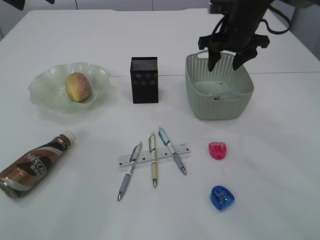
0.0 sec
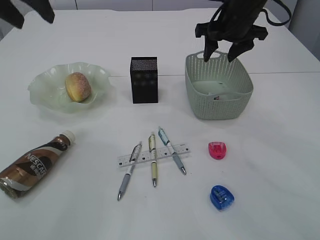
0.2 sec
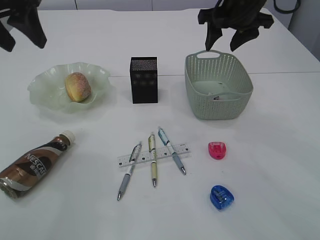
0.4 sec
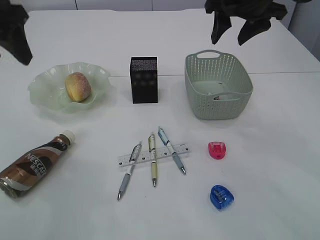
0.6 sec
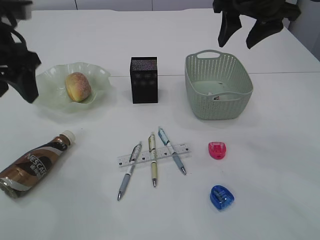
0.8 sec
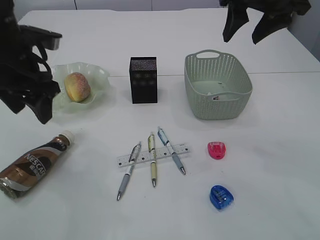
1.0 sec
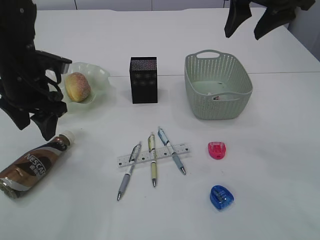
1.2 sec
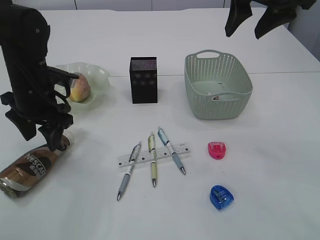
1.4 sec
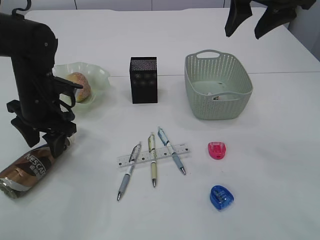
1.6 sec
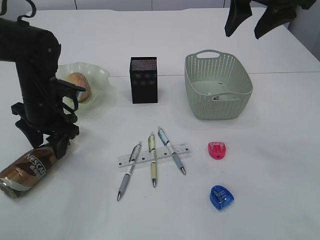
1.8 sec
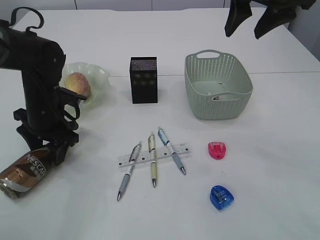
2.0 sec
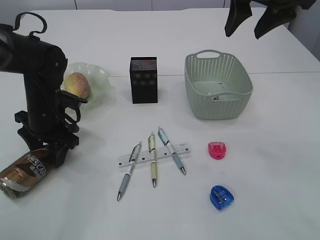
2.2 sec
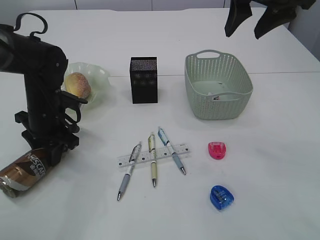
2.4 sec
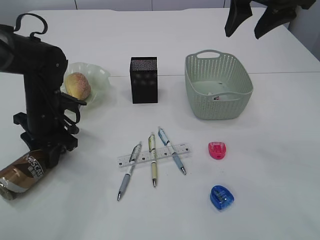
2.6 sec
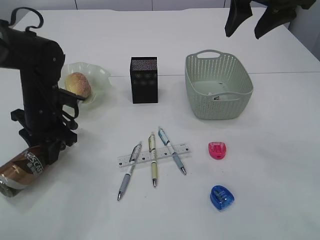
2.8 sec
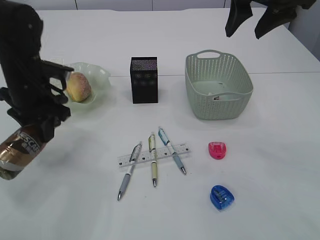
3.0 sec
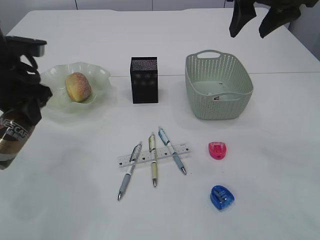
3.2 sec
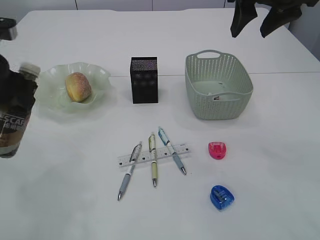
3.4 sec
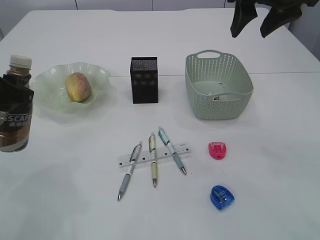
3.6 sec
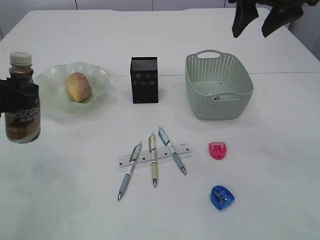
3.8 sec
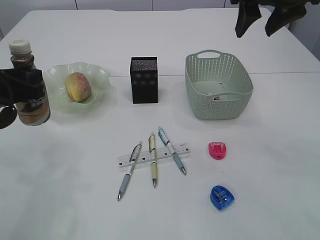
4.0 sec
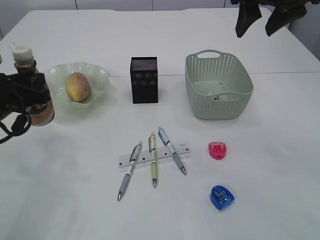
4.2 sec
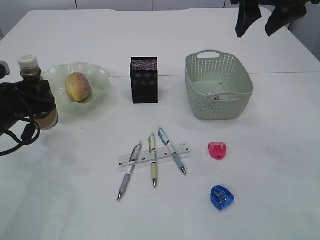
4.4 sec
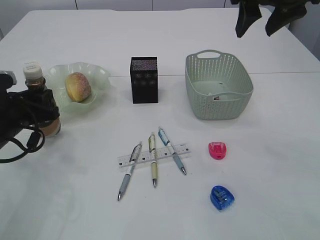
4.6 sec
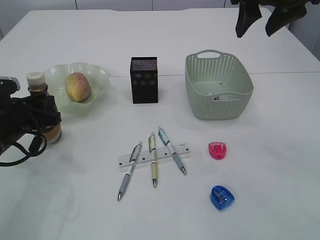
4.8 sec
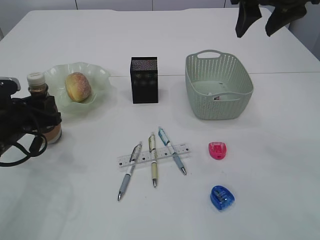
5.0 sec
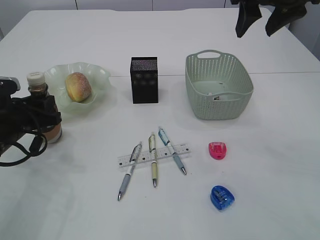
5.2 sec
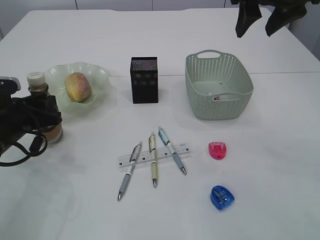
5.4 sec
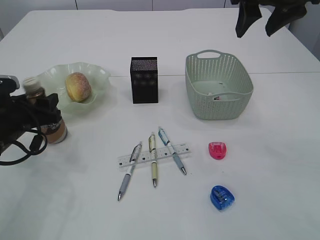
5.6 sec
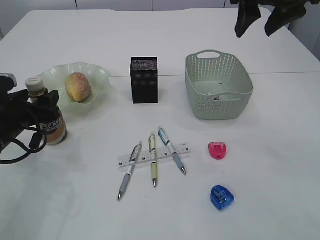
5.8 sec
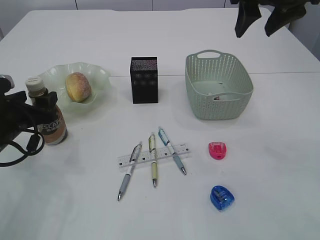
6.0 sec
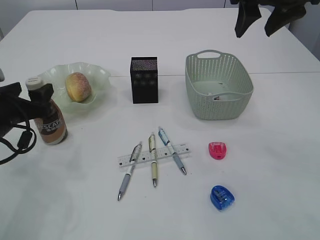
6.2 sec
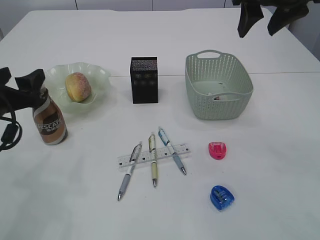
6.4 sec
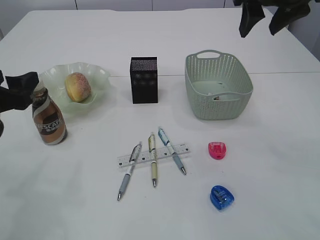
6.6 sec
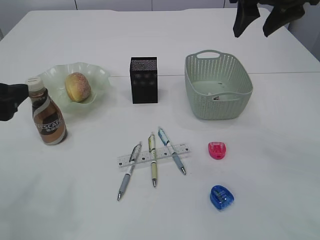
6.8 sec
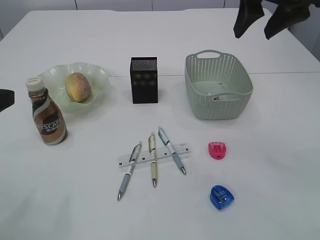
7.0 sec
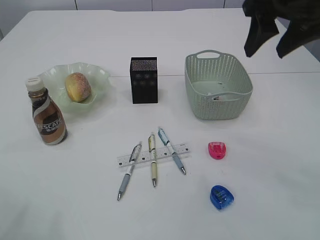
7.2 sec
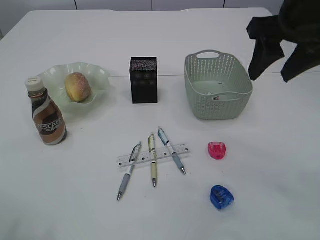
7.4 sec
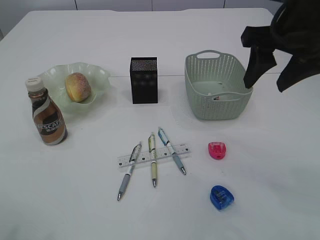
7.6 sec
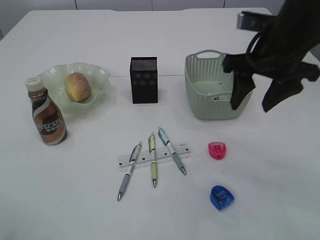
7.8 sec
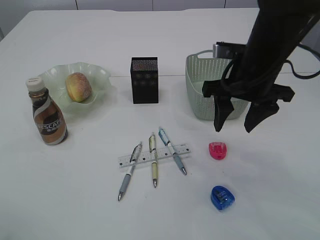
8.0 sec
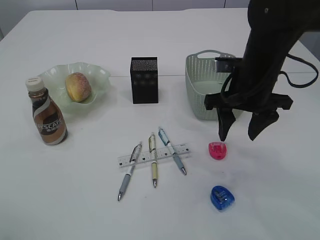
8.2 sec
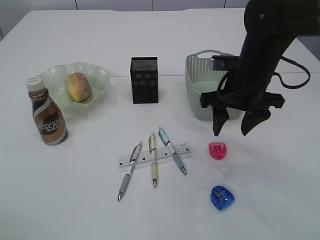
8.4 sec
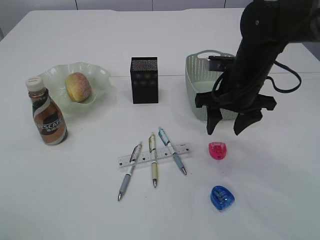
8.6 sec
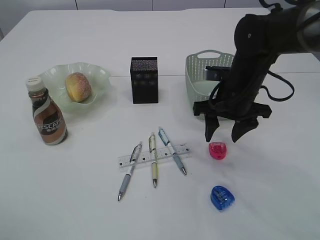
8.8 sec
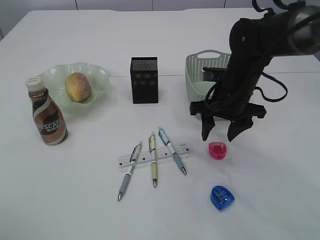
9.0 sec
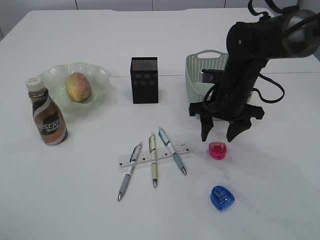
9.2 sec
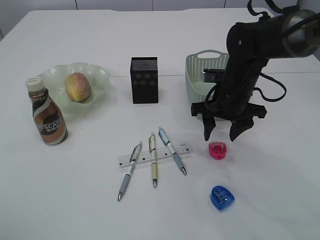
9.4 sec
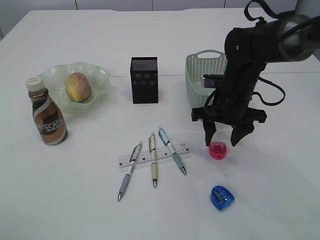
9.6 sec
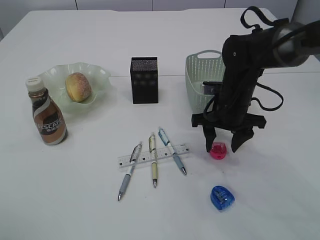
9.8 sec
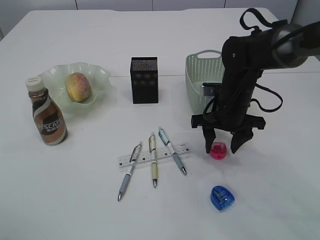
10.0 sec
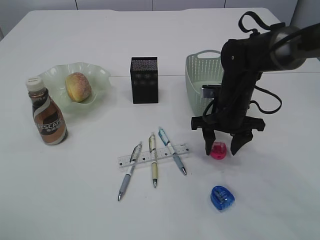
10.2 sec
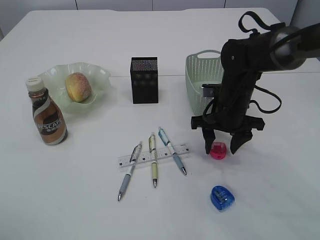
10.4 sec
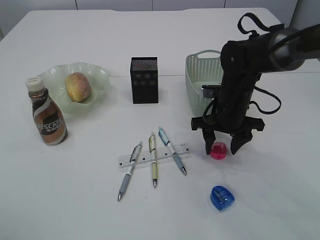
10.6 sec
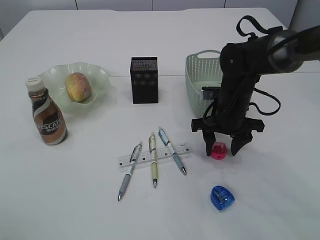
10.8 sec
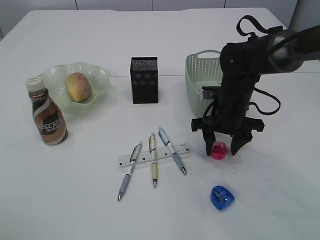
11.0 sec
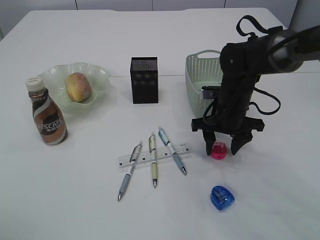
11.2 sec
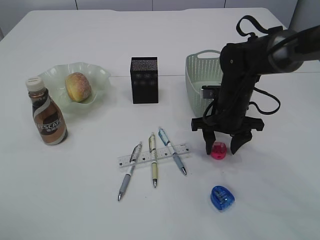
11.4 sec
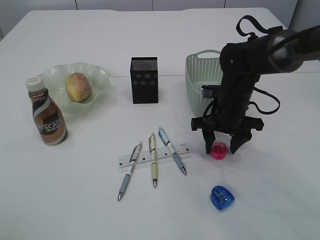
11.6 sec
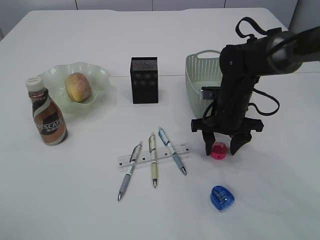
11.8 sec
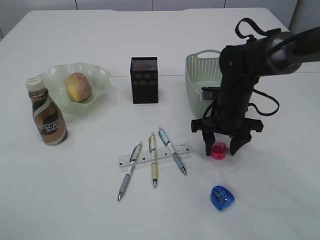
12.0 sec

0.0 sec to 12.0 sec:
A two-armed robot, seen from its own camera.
Step, 0.6 sec to 2.8 sec: transfer the bottle to the left arm.
Step, 3.0 sec to 6.6 sec: Place the bottle.
0.0 sec to 1.6 sec: The left gripper heads downward, covering approximately 25 cm, while the right gripper shifts roughly 15 cm upward and backward.
1.6 sec to 3.0 sec: The left gripper closes up.
3.0 sec to 4.4 sec: The left gripper travels backward by about 5 cm, and goes upward and returns, some 10 cm each way.
4.4 sec to 6.0 sec: The left gripper opens.
6.0 sec to 7.6 sec: The right gripper goes approximately 5 cm backward, while the left gripper goes roughly 25 cm upward and backward.
7.6 sec to 9.0 sec: The right gripper goes about 20 cm downward and forward.
9.0 sec to 10.4 sec: The grippers move only a little.
10.4 sec to 12.0 sec: Both grippers stay put.

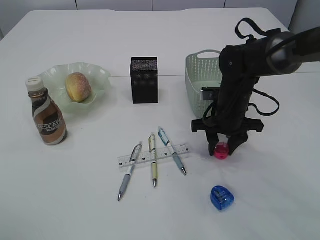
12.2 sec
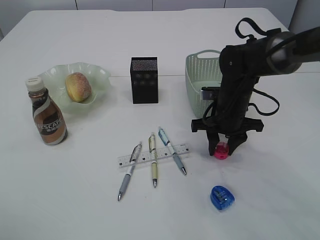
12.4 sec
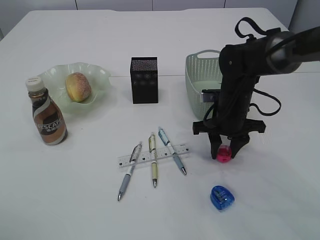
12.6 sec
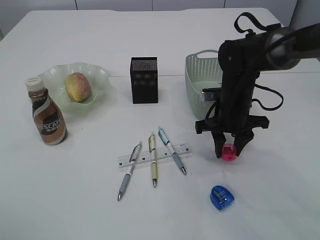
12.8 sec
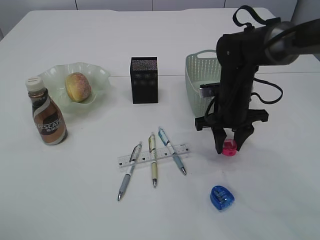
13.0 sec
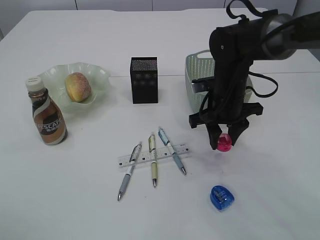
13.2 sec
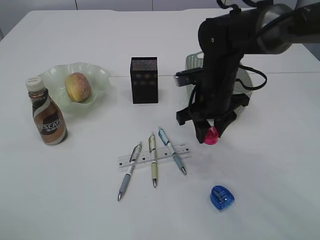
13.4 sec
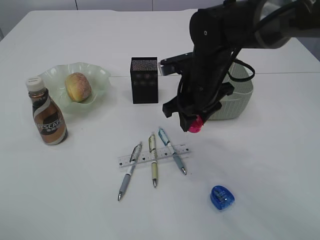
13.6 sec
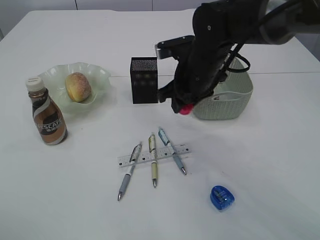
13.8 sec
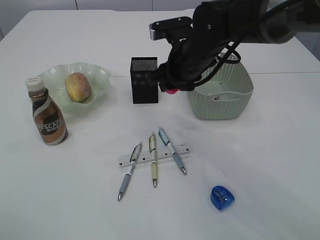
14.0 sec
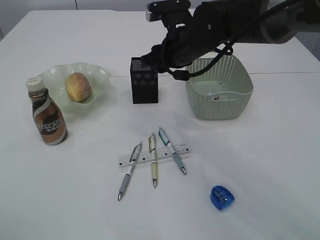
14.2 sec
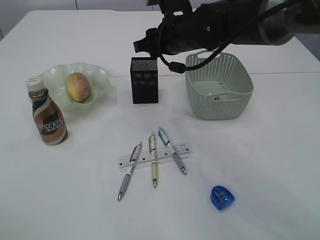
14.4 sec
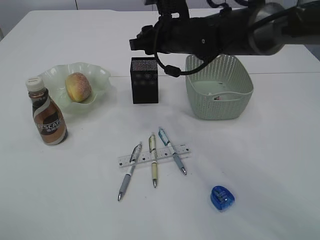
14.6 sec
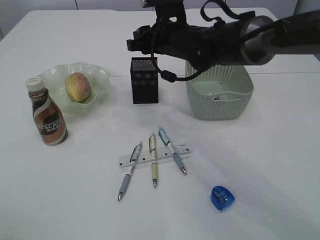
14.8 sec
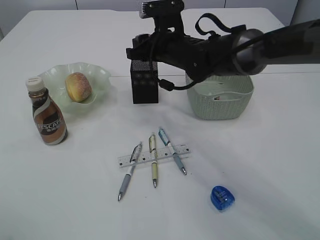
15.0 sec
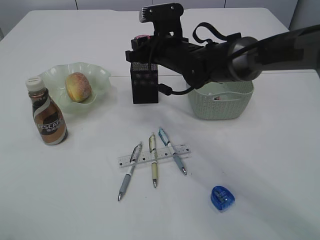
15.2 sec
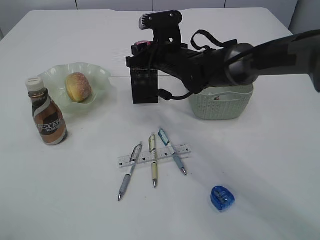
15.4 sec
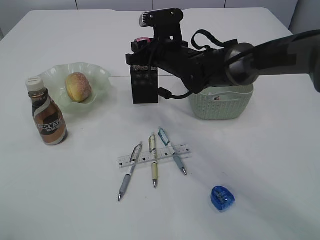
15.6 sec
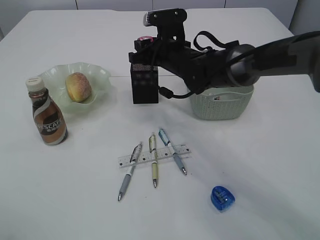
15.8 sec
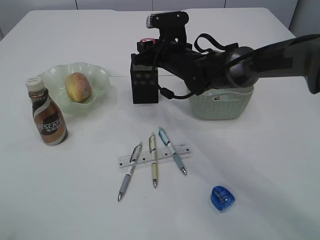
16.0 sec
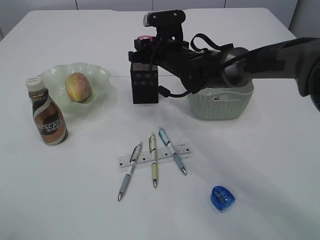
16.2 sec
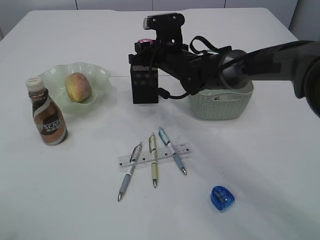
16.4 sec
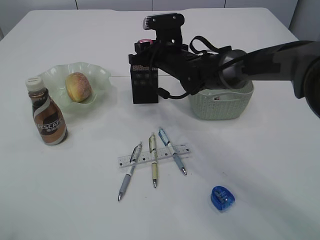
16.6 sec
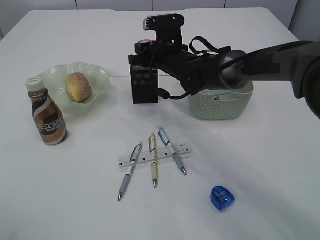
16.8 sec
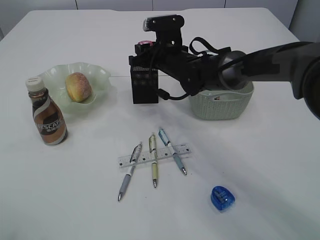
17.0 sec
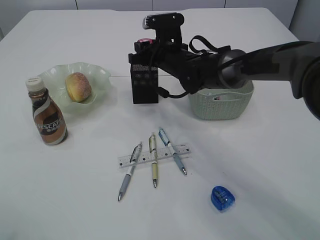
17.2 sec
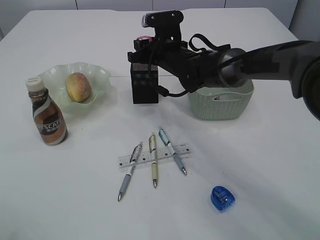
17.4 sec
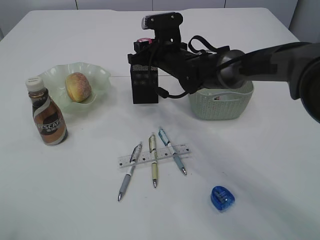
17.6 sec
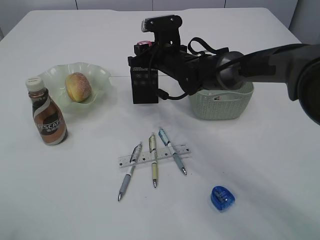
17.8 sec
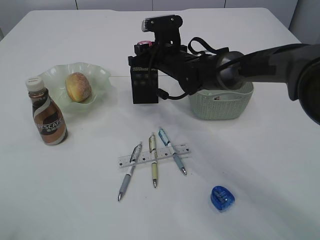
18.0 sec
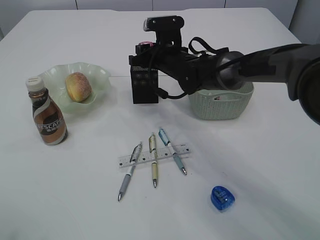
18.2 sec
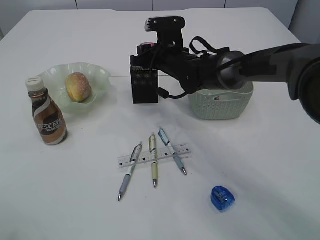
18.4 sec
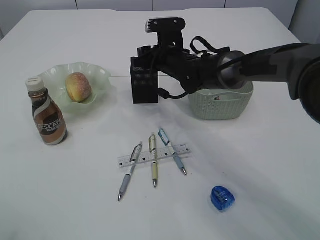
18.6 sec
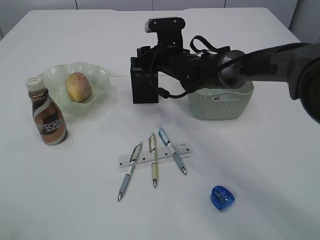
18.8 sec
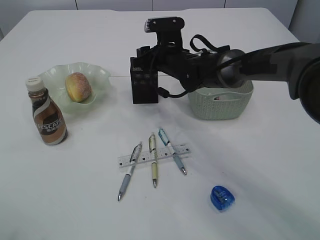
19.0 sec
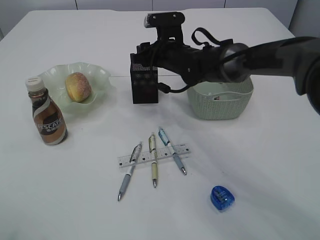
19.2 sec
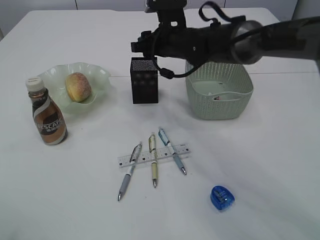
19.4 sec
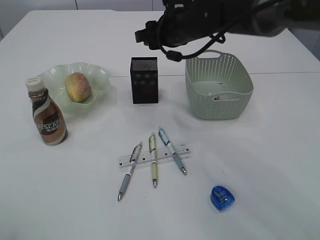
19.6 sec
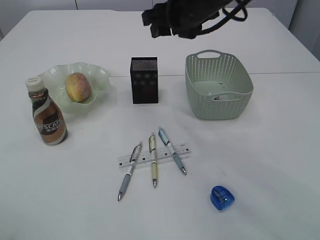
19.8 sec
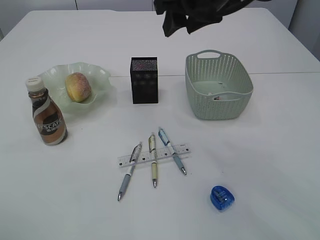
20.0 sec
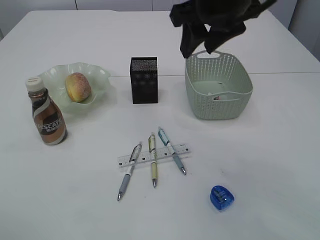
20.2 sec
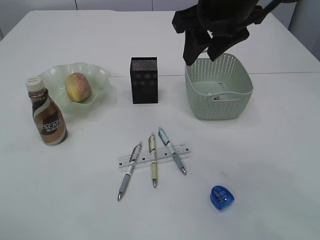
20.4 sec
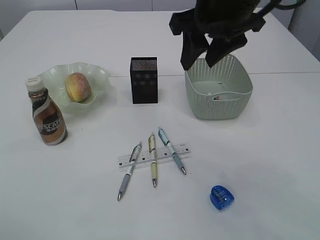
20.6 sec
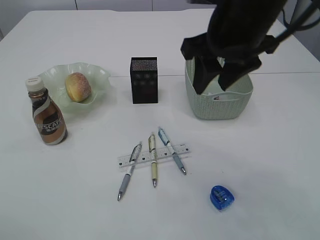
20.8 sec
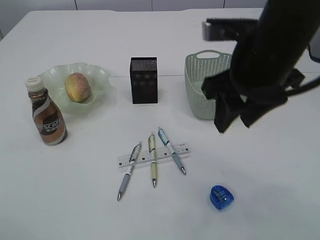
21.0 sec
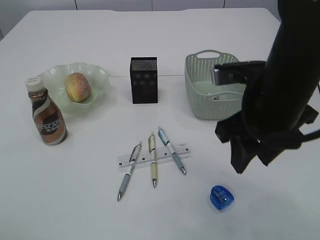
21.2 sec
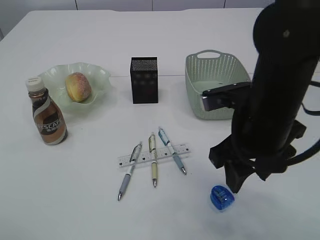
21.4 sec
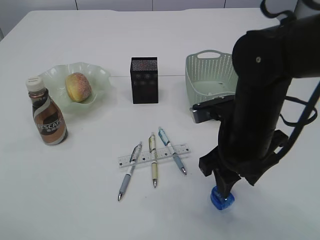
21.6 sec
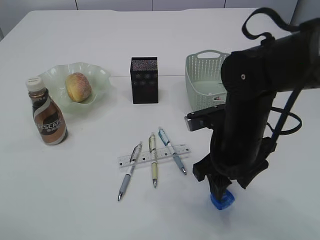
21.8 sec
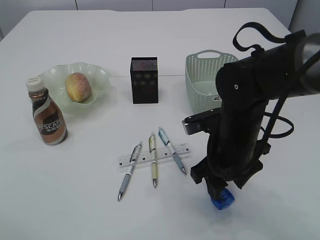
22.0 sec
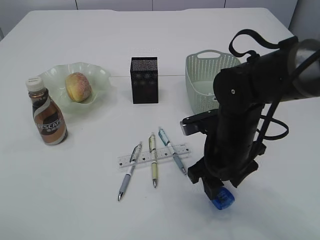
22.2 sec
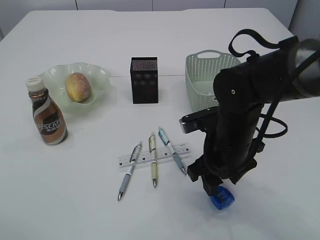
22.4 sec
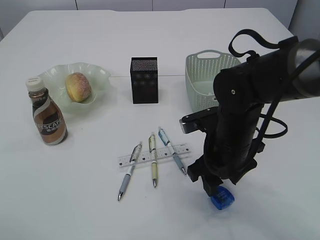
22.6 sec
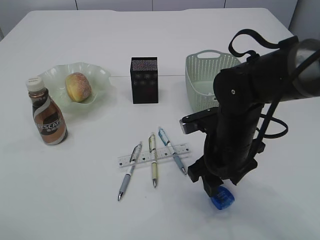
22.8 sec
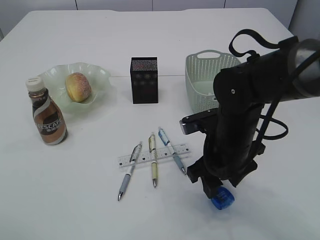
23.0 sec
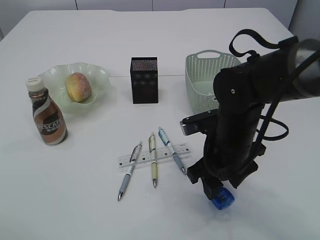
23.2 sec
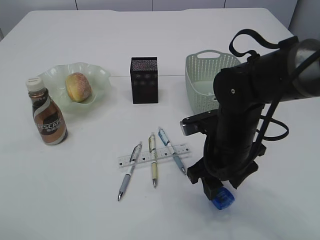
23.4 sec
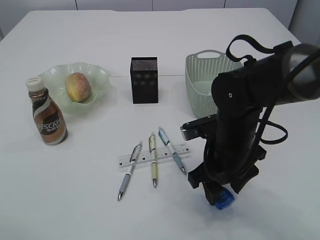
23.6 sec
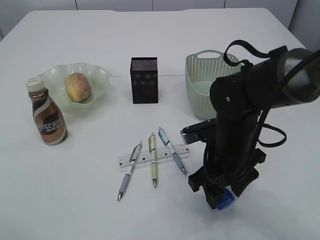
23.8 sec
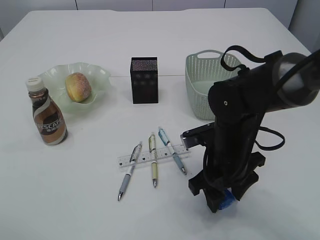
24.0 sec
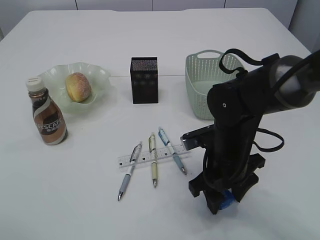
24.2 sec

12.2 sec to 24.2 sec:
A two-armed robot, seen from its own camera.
Step, 13.6 sec to 19.4 sec: Place the red pencil sharpener into the pen holder.
12.2 sec to 13.8 sec: The right gripper is displaced upward and to the left by roughly 10 cm.
13.8 sec to 15.2 sec: The right gripper shifts about 5 cm forward.
15.2 sec to 16.6 sec: There are only small adjustments of the grippers.
16.6 sec to 18.2 sec: Both grippers stay put.
18.2 sec to 19.8 sec: The right gripper moves upward and backward, approximately 15 cm.
19.8 sec to 21.2 sec: The right gripper is displaced backward by roughly 15 cm.
21.2 sec to 22.6 sec: The right gripper travels downward by roughly 10 cm.
22.6 sec to 24.2 sec: The grippers make only small movements.
